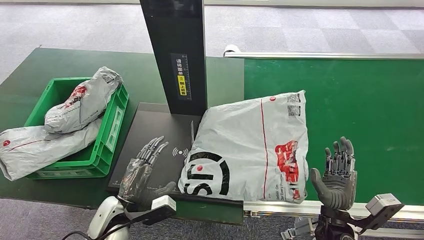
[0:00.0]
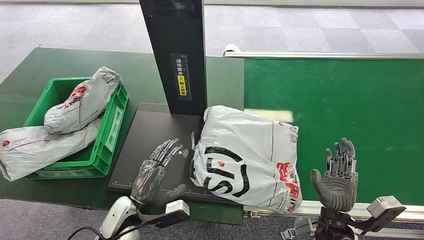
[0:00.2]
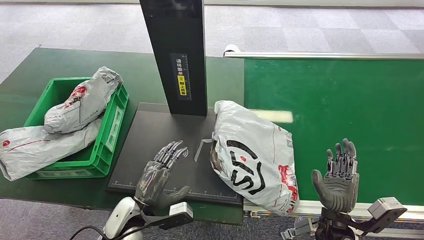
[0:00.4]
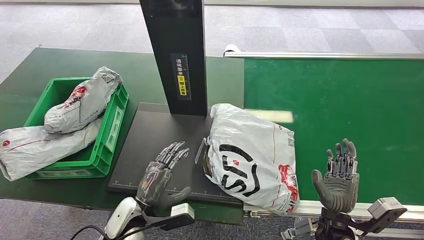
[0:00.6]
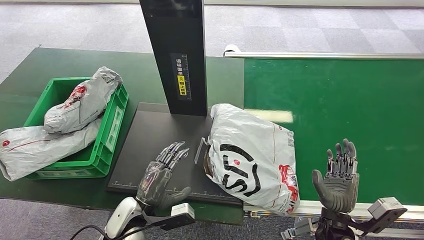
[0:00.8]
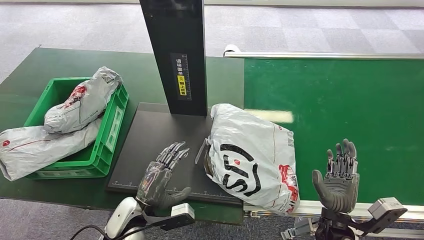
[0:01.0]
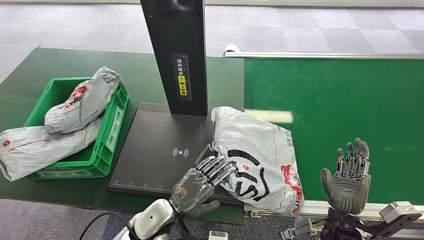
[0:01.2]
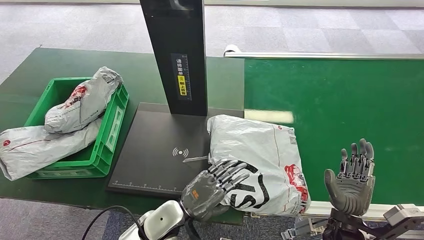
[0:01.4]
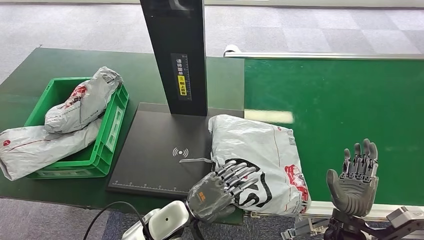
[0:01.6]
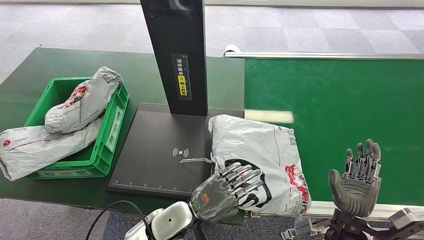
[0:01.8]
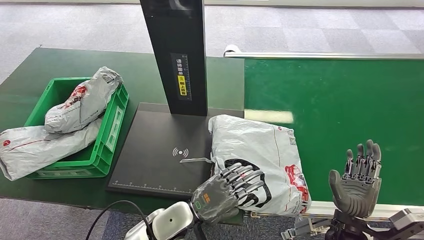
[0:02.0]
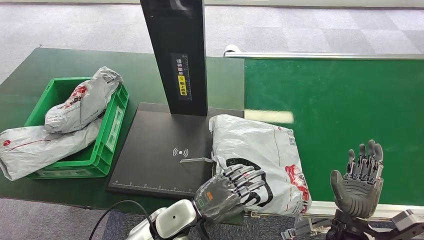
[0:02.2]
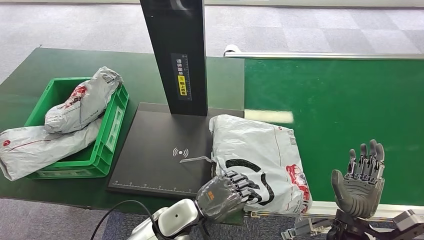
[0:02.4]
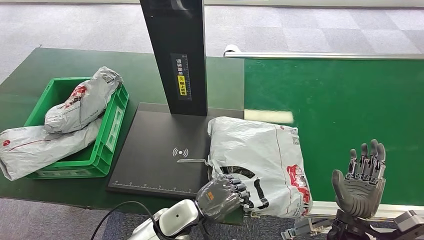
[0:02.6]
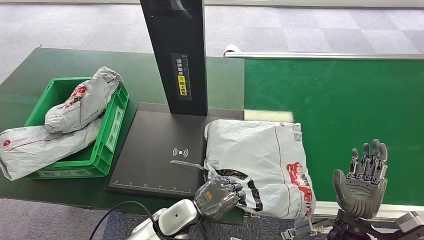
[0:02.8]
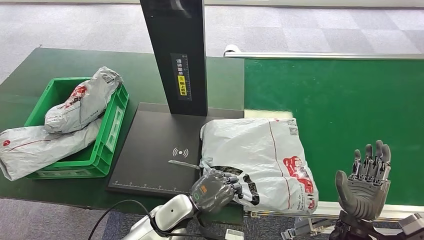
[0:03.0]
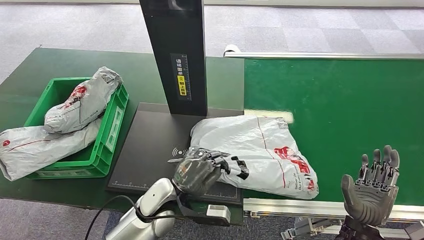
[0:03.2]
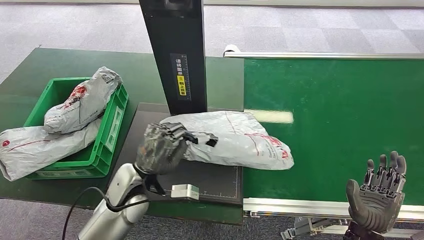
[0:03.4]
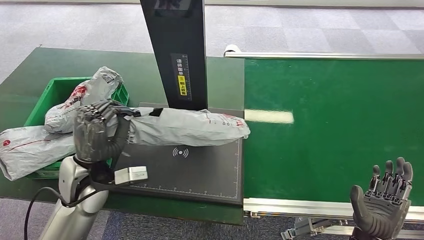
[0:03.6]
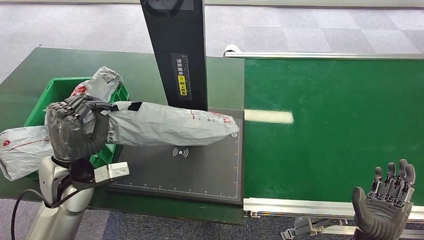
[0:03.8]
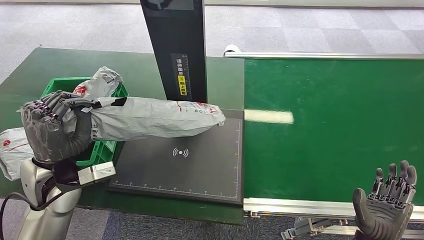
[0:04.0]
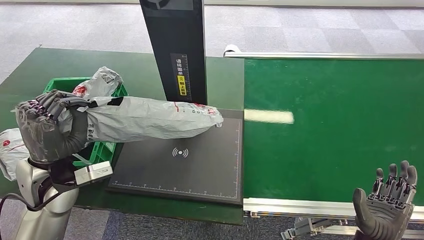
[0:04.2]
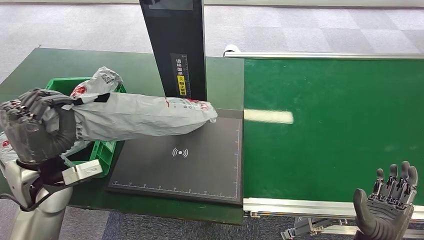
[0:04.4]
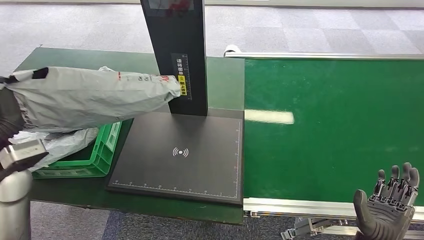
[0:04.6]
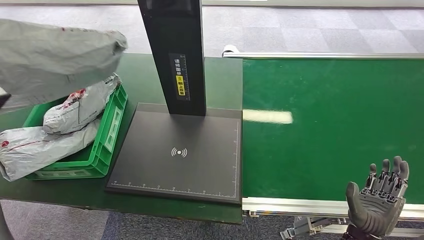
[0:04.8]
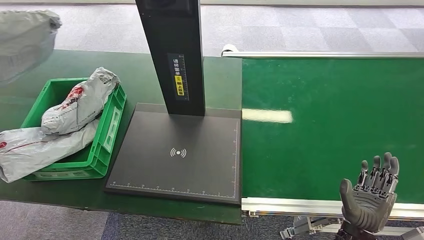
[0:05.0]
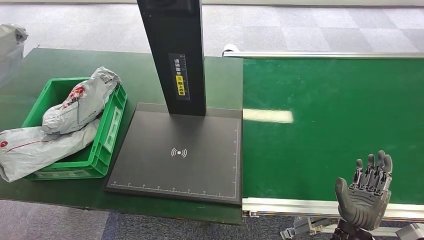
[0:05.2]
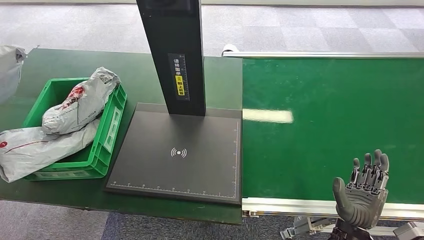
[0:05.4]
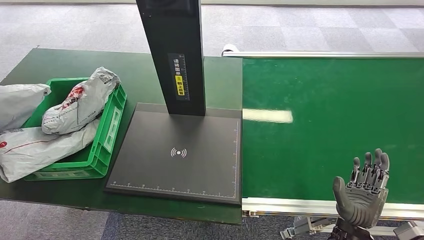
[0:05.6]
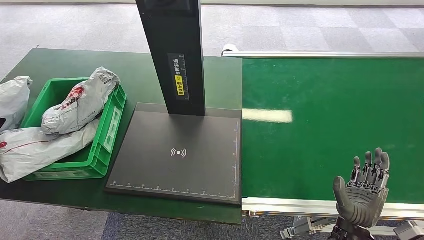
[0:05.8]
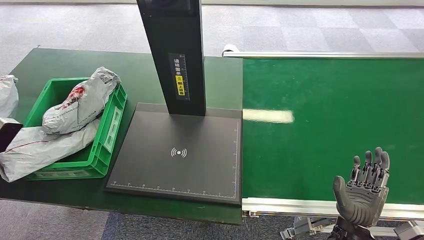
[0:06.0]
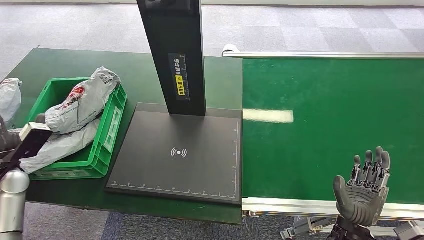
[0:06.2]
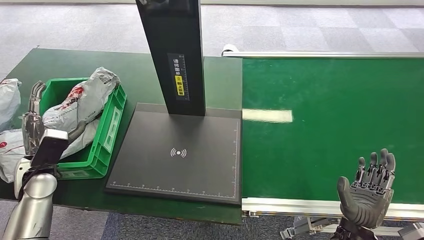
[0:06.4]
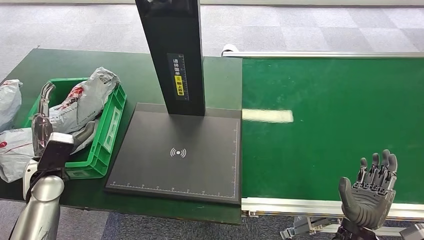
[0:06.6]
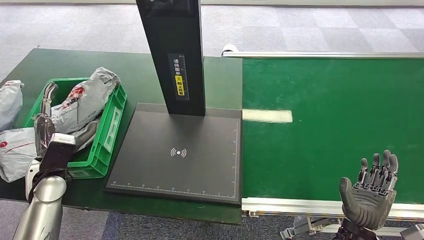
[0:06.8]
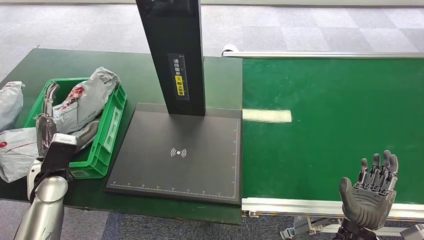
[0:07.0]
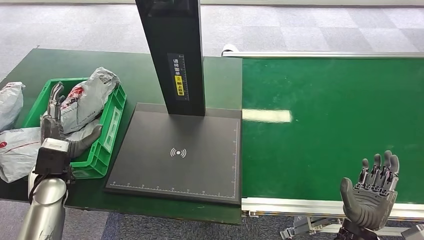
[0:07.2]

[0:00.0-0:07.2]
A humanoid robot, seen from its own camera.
Step, 0:01.2 to 0:03.8: Pick up the package from the inbound machine.
Step, 0:04.0 to 0:07.2: Place the package into the parcel locker.
0:00.0 to 0:01.4: The left hand is displaced to the right by roughly 15 cm.
0:01.4 to 0:02.8: The hands make only small movements.
0:05.8 to 0:07.2: The left hand moves to the right, about 20 cm.

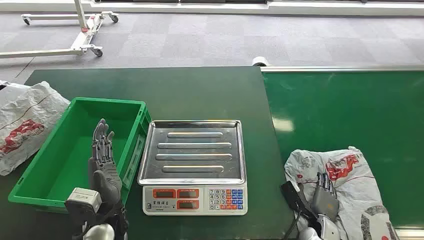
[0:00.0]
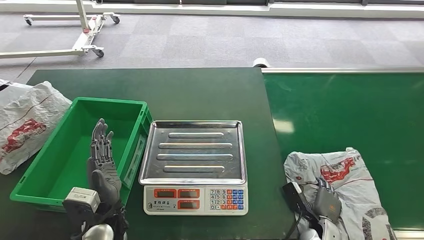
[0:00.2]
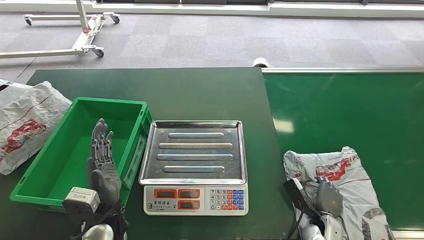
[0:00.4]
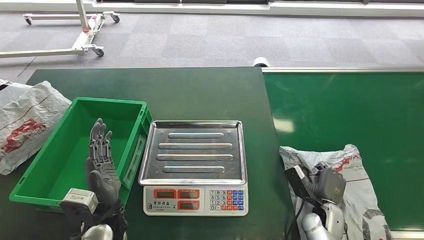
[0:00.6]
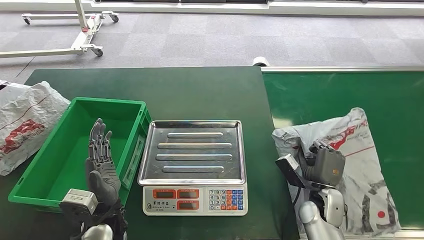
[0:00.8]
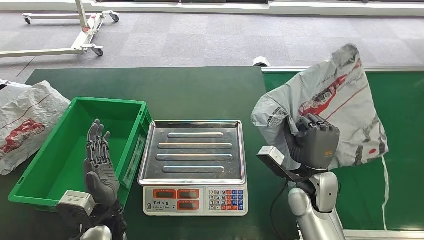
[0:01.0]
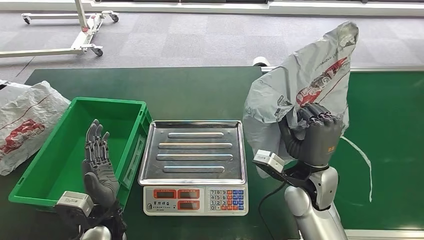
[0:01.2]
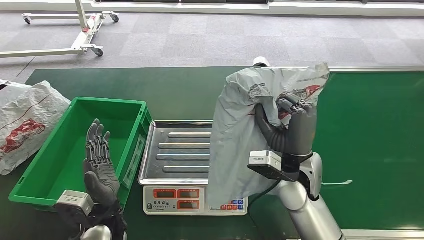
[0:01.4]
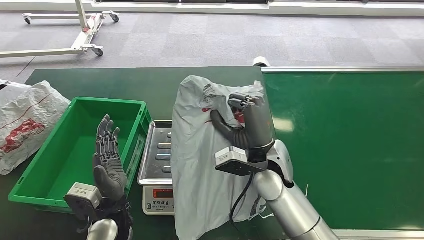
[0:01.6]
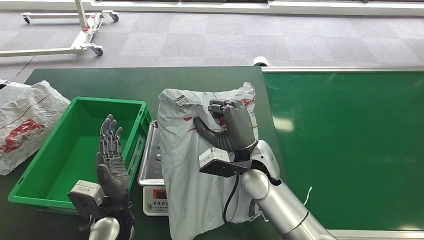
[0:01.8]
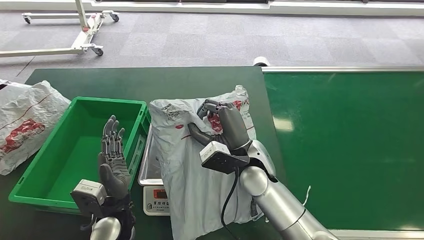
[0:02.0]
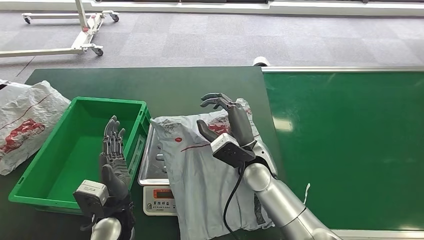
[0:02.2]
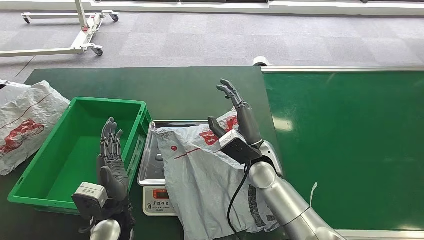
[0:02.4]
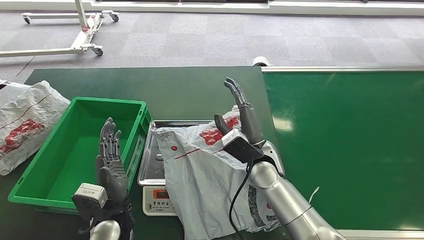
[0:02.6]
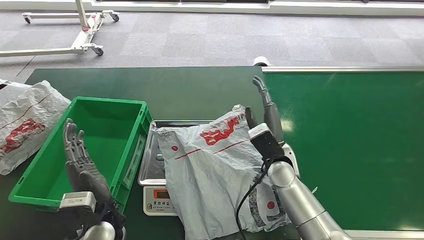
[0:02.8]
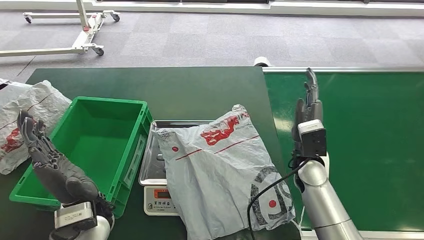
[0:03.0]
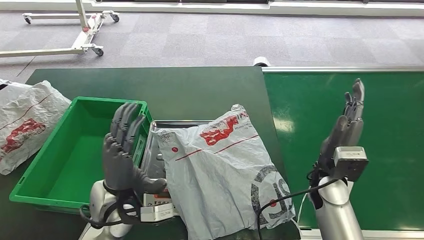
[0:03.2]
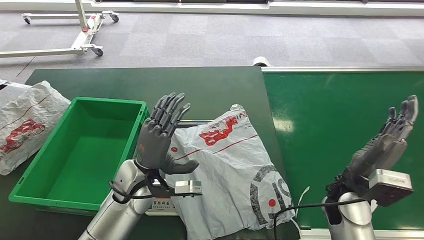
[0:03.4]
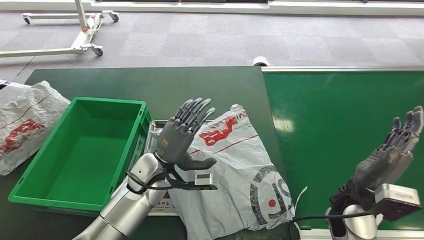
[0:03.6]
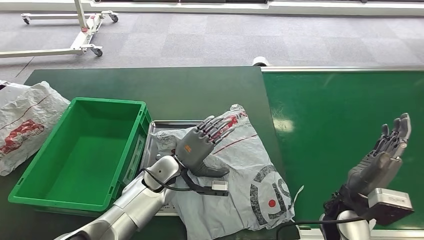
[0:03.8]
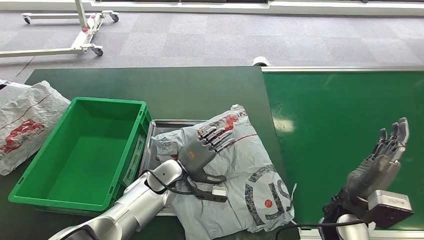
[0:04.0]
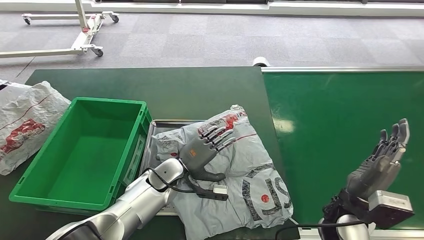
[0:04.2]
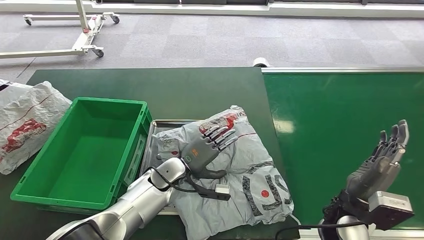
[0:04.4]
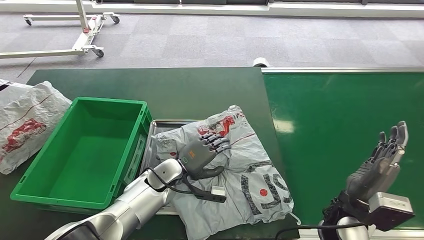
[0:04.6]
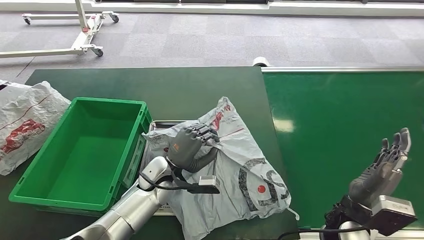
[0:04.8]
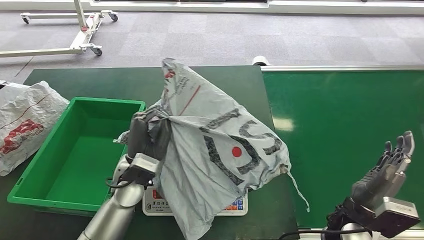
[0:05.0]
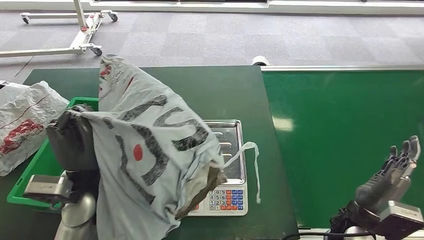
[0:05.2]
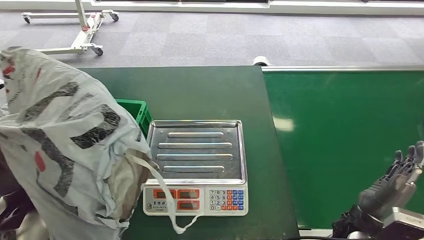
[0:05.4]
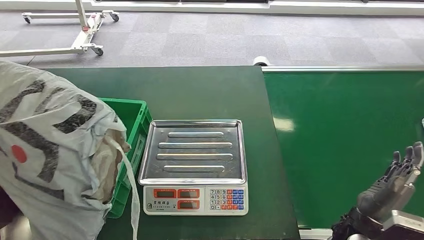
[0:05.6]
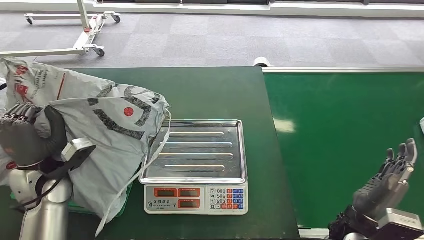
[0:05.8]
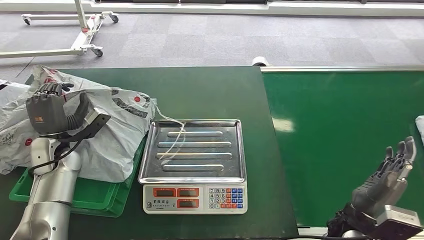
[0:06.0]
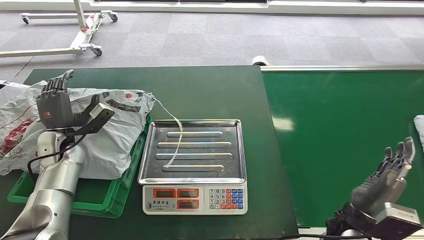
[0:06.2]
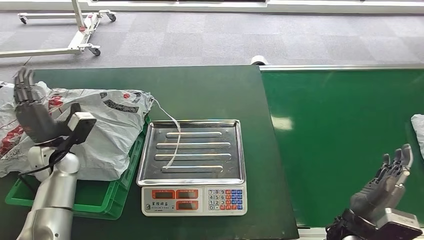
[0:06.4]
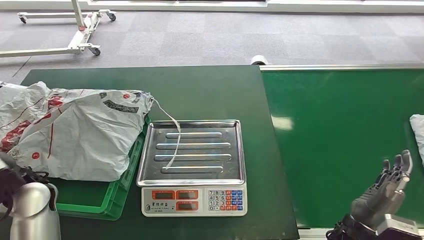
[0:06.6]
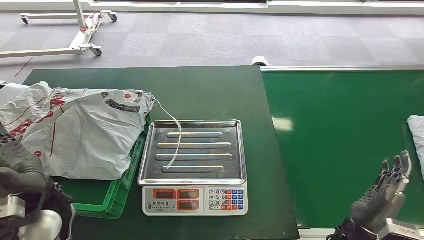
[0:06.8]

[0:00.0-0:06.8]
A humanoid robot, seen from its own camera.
Step, 0:00.0 to 0:00.8: Pick up the package from the conveyor belt.
Step, 0:01.0 to 0:02.8: Place the package onto the inbound machine.
Step, 0:03.2 to 0:05.2: Pick up the package from the inbound machine.
Step, 0:05.4 to 0:06.6: Place the package into the parcel locker.
0:02.8 to 0:04.0: The right hand travels to the right and backward by about 15 cm, while the left hand shifts about 15 cm forward and to the right.

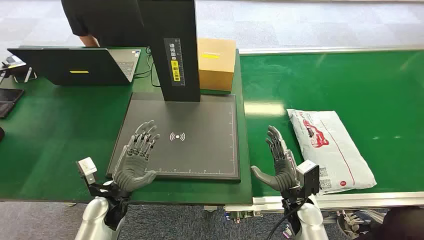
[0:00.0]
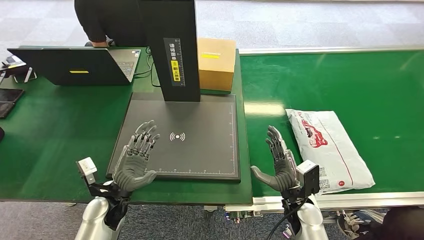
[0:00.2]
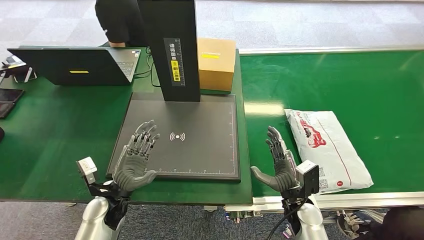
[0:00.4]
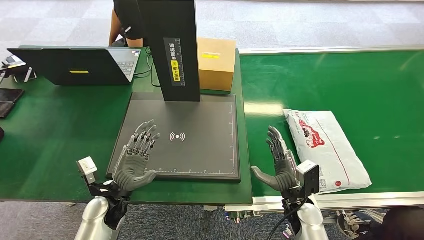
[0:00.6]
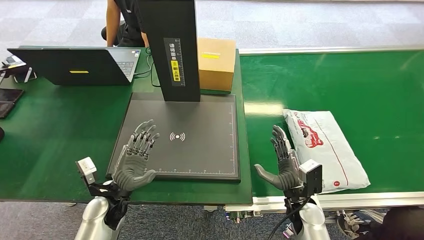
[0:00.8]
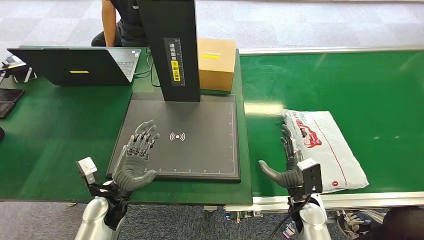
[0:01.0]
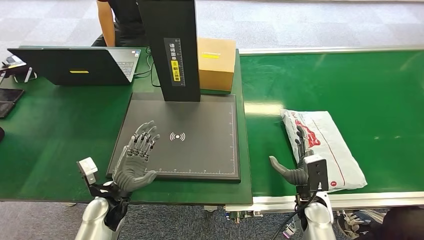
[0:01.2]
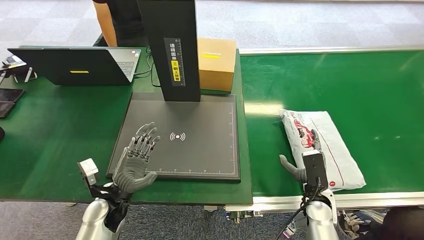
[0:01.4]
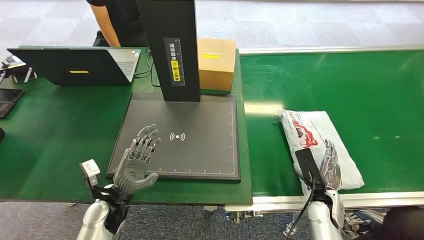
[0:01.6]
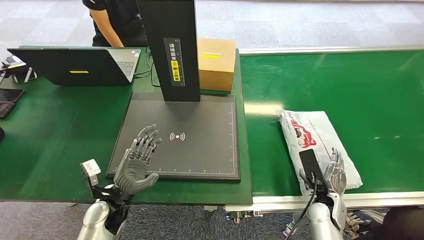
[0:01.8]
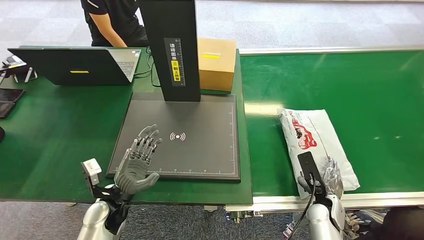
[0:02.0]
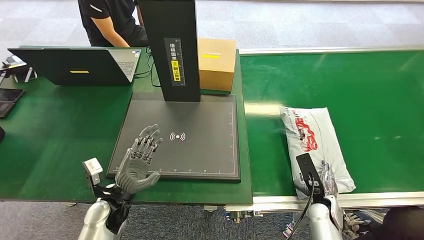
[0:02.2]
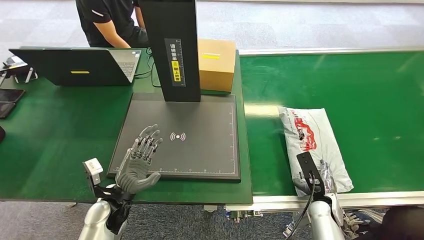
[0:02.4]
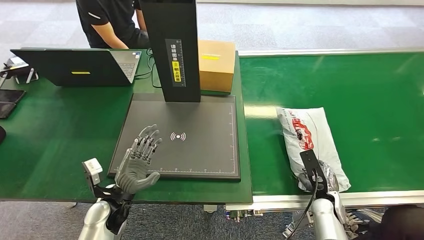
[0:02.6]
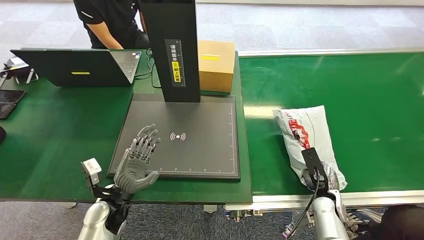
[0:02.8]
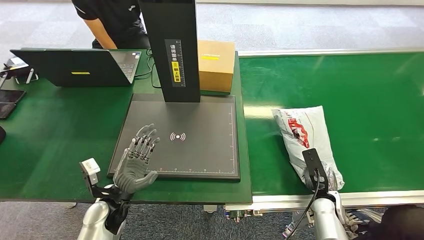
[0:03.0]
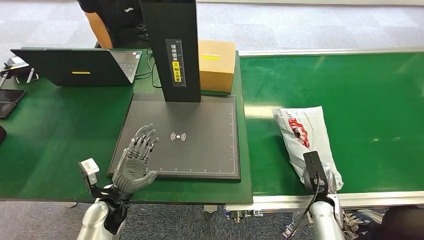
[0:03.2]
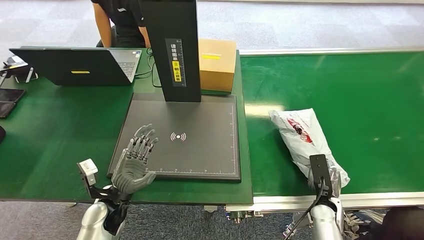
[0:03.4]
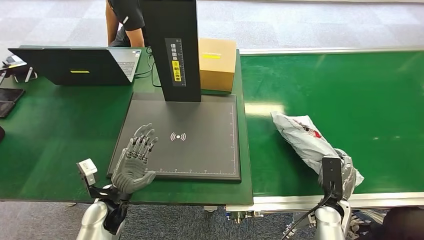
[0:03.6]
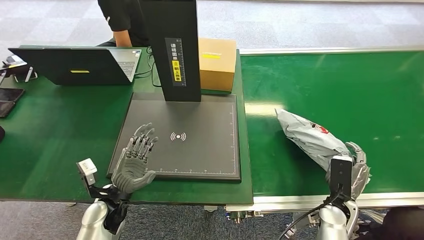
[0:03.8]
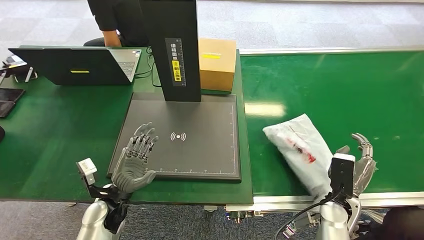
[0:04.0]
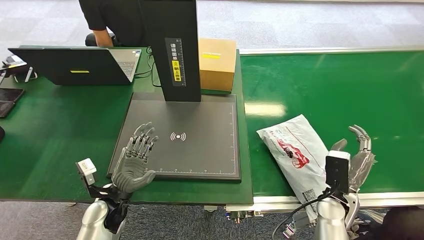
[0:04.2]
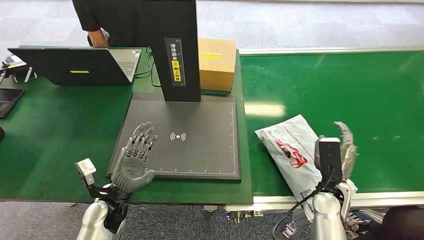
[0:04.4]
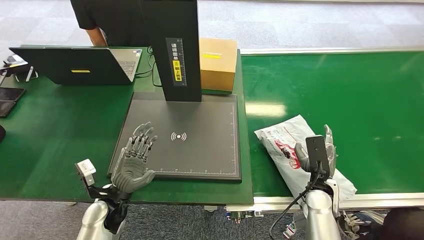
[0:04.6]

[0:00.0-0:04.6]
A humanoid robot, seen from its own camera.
0:03.0 to 0:04.6: The right hand travels upward by roughly 10 cm.
